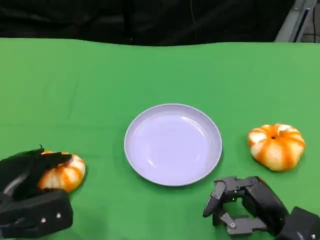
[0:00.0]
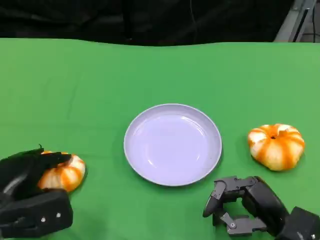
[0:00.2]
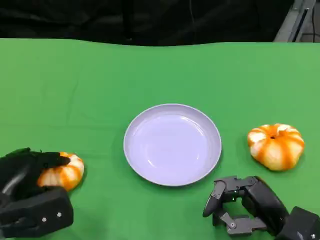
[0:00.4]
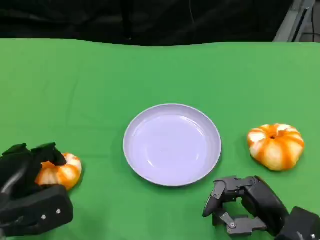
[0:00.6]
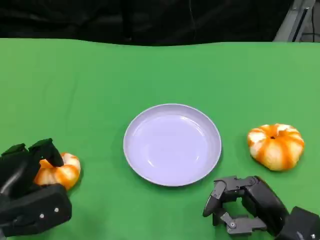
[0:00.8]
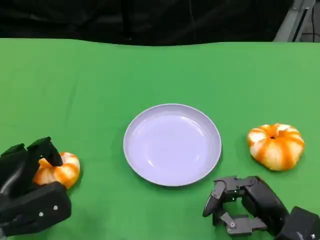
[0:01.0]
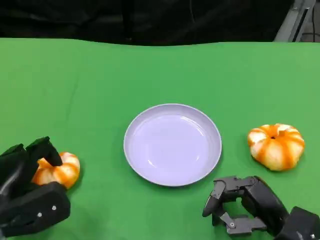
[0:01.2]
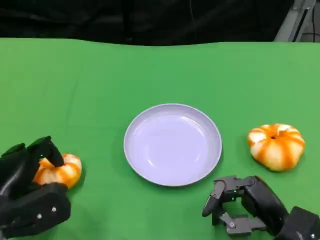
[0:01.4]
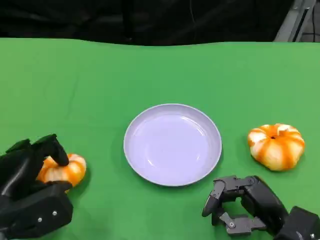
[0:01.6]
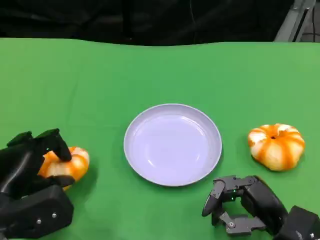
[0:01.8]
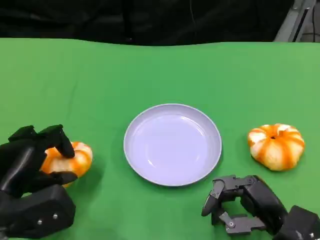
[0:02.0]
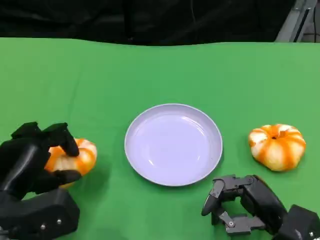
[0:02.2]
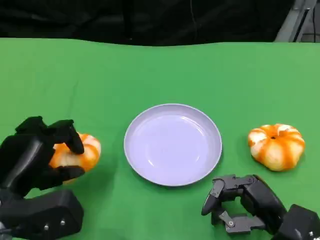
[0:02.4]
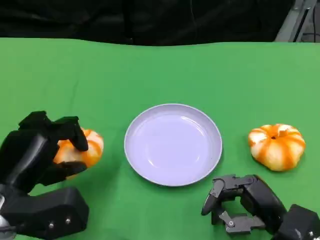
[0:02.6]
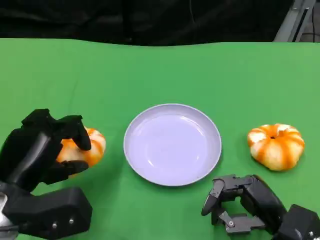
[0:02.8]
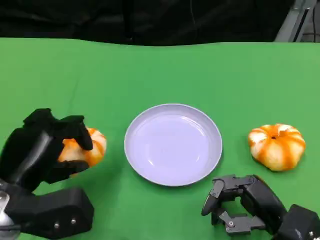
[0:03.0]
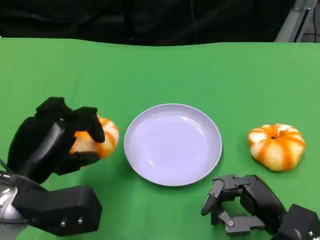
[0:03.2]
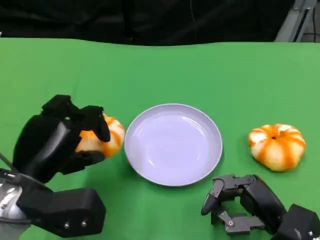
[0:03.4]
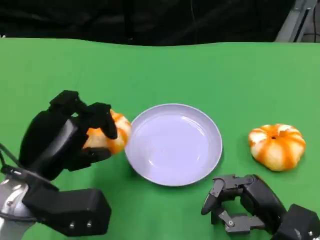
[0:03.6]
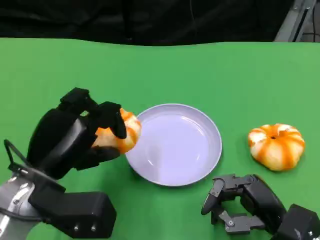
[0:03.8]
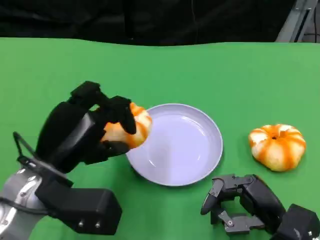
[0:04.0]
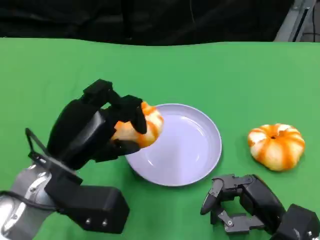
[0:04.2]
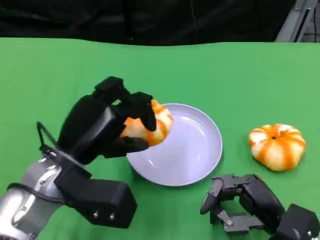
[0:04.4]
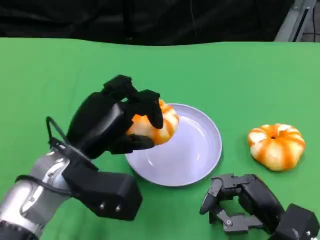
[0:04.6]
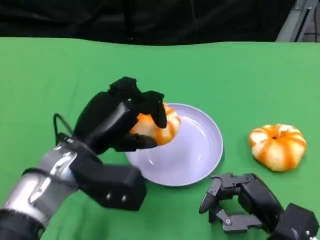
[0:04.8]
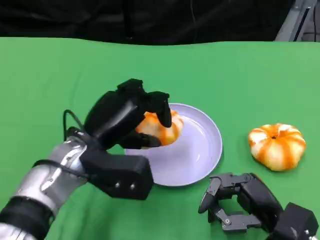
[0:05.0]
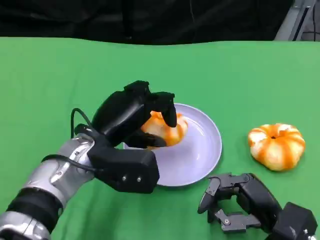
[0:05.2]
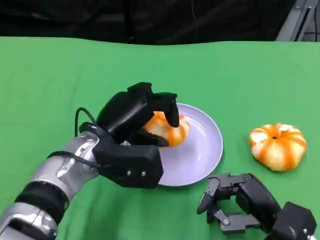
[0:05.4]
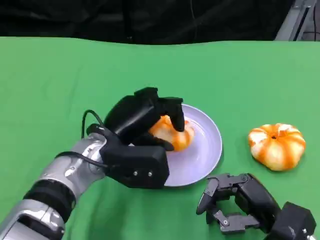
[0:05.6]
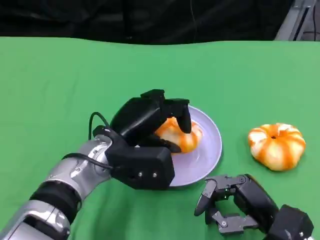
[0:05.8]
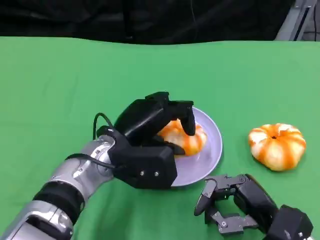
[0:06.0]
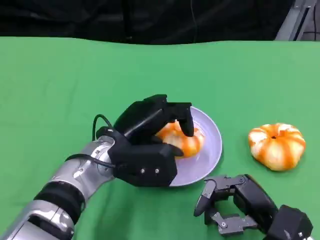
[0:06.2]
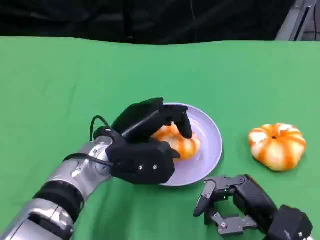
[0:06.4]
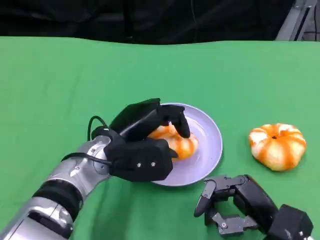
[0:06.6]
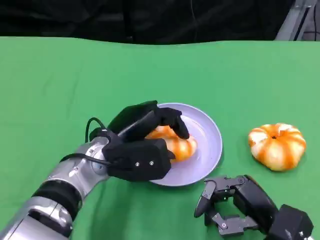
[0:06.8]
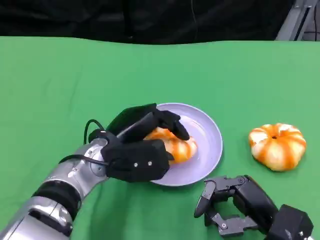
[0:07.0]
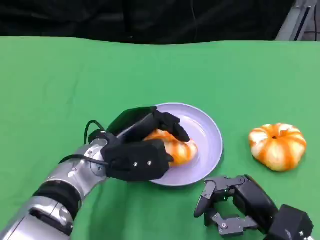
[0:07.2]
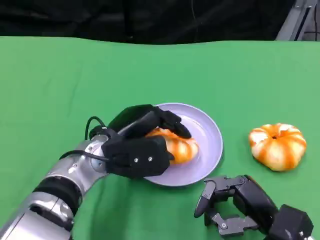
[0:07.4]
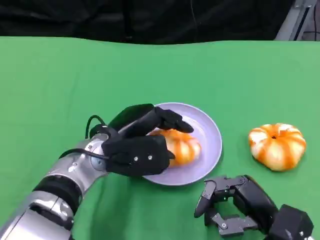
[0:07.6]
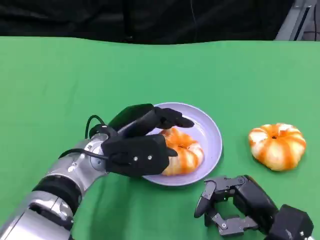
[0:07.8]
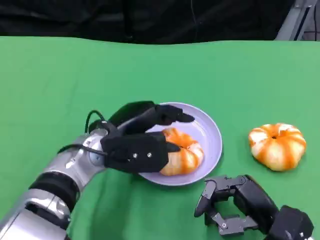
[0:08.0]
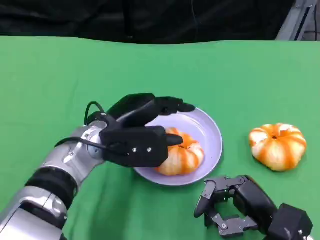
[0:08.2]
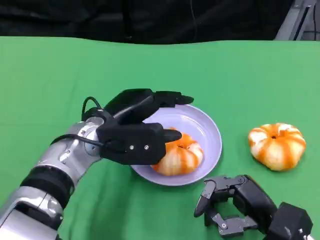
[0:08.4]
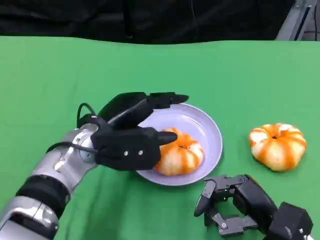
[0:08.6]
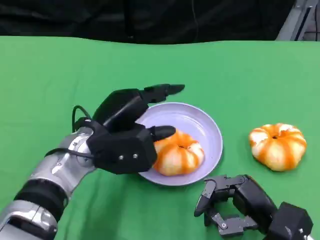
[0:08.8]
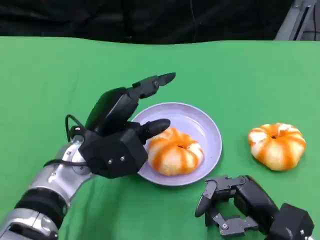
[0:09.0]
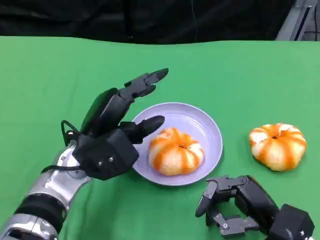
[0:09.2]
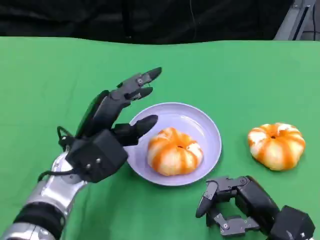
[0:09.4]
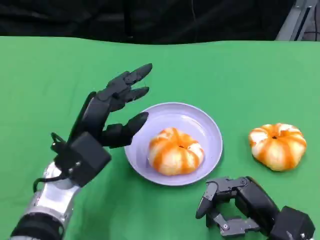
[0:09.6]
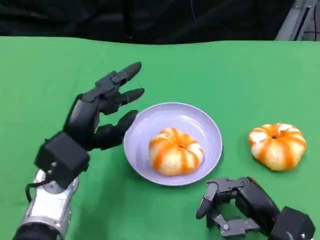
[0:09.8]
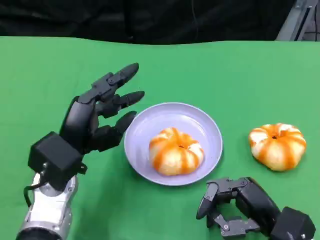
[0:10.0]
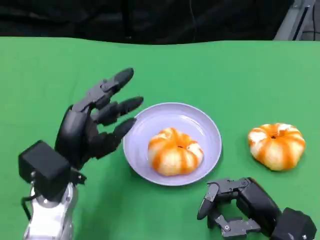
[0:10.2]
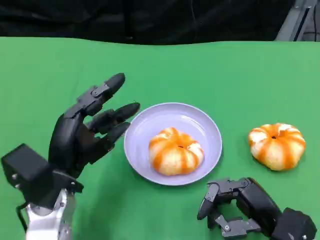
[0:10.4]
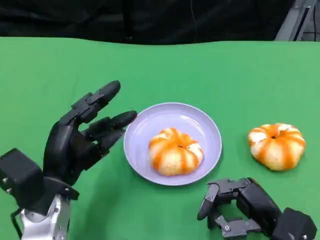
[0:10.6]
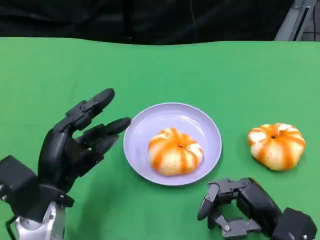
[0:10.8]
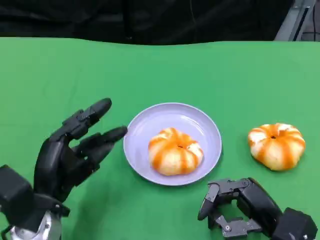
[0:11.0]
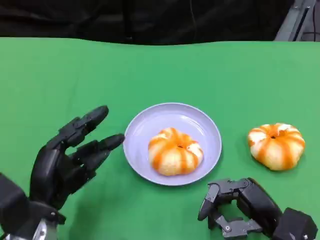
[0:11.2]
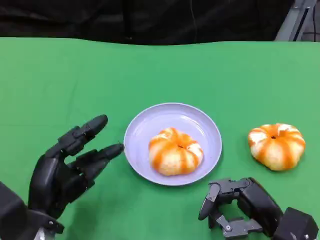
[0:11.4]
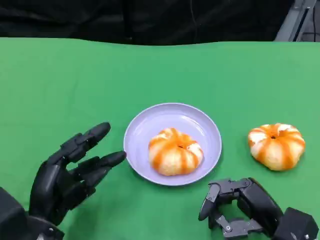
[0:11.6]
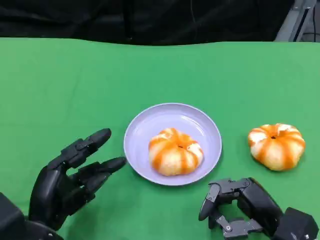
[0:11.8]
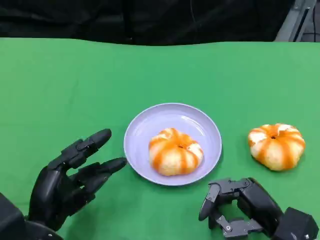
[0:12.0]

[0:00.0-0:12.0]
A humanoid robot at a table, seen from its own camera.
Task of the whole recording: Grasp the bread from the table and place it into the plate.
0:00.0 to 0:01.6: There are only small adjustments of the hands.
0:01.6 to 0:03.0: The left hand travels upward by about 5 cm.
0:03.0 to 0:04.4: The left hand is displaced to the right by some 5 cm.
0:04.4 to 0:06.0: The left hand travels to the right by roughly 5 cm.
0:06.0 to 0:07.6: The hands move only a little.
0:09.0 to 0:10.4: The left hand goes some 5 cm backward.
0:10.4 to 0:12.0: The left hand heads backward, covering approximately 5 cm.

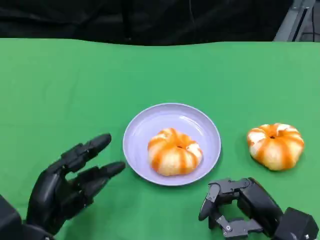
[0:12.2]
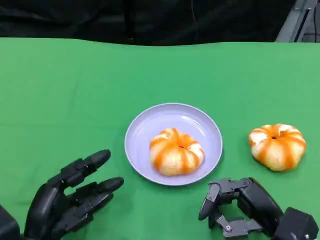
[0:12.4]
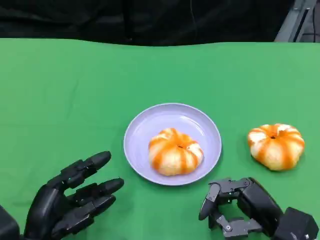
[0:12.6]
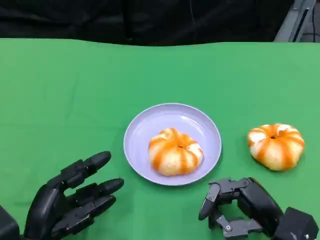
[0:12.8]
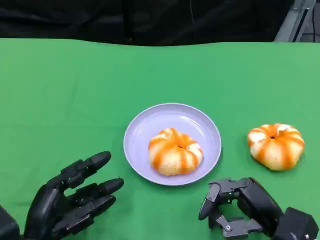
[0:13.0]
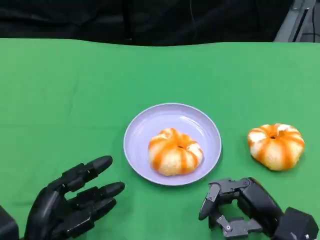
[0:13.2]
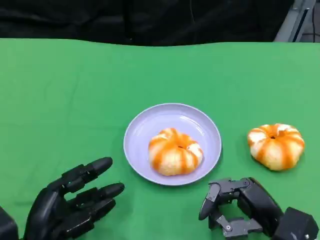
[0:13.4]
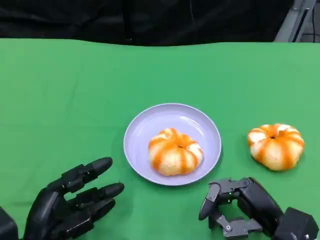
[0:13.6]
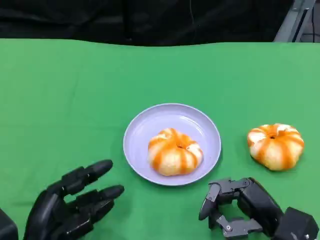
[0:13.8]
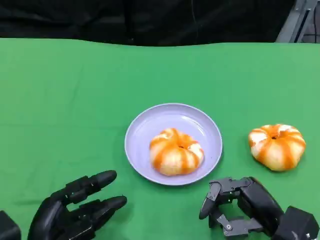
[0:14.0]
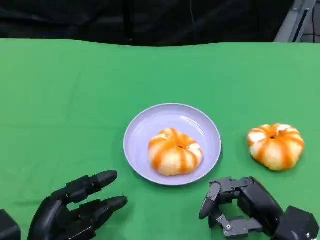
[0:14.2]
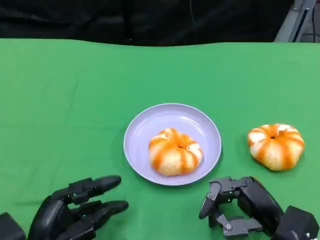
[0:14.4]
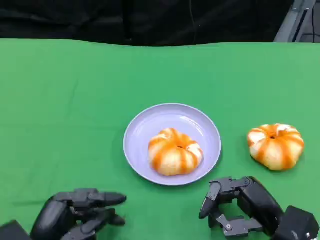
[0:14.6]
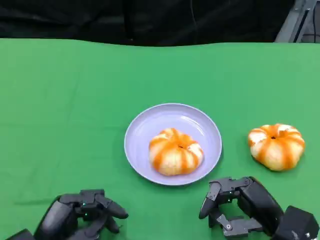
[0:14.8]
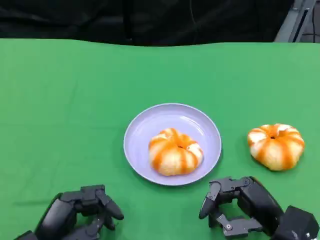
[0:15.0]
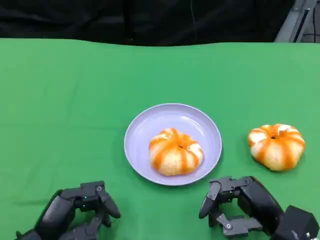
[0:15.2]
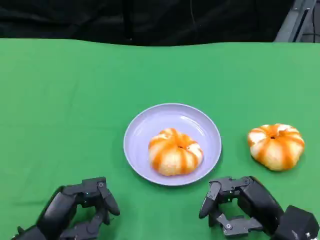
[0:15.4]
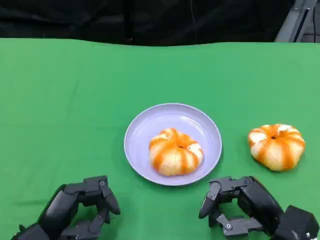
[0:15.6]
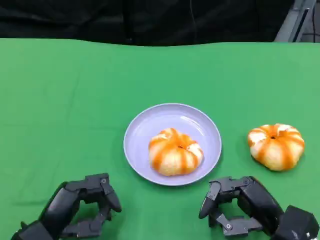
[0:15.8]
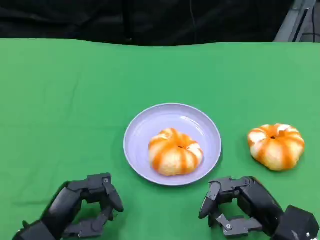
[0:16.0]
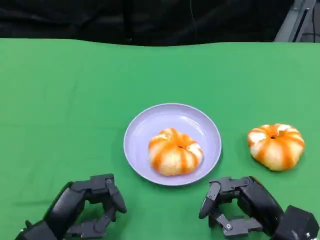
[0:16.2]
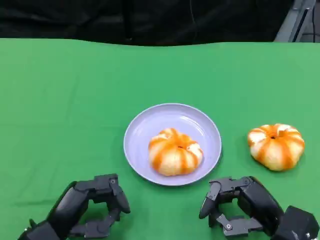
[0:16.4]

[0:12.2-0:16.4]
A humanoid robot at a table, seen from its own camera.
Task of the whole recording: Grasp the bread from the table and place it into the plate.
0:12.2 to 0:13.6: The hands make only small movements.
0:15.0 to 0:16.4: The hands stay close to where they were, moving slightly.

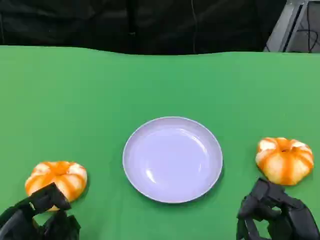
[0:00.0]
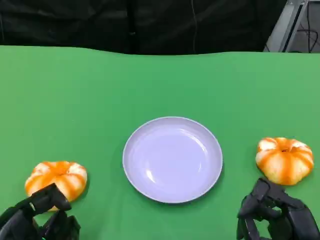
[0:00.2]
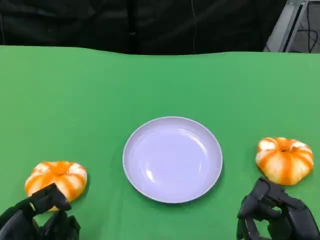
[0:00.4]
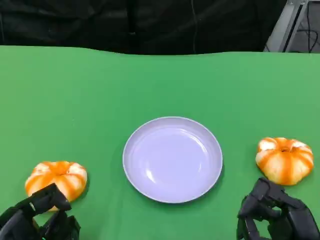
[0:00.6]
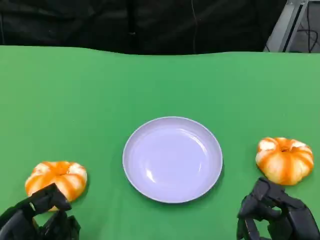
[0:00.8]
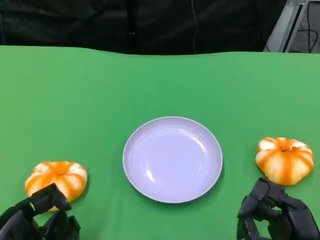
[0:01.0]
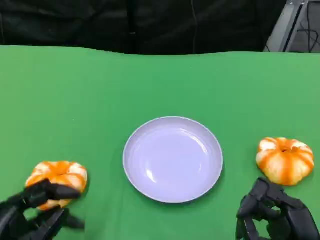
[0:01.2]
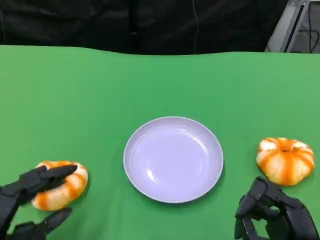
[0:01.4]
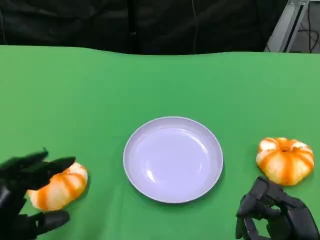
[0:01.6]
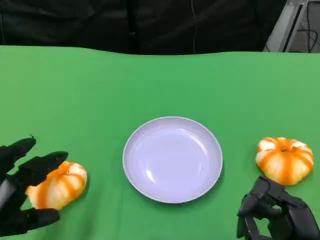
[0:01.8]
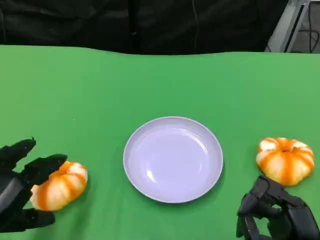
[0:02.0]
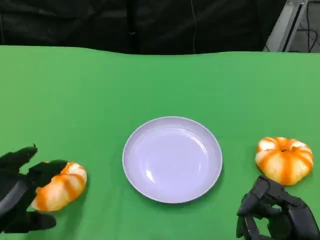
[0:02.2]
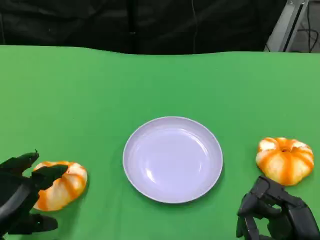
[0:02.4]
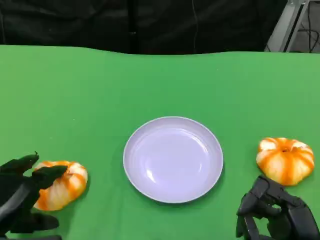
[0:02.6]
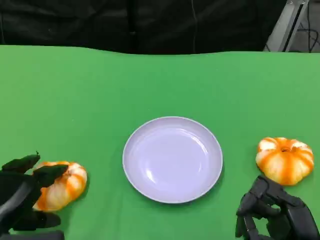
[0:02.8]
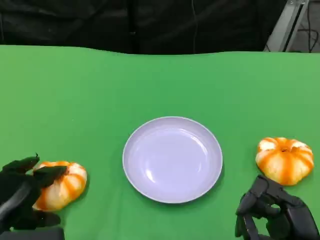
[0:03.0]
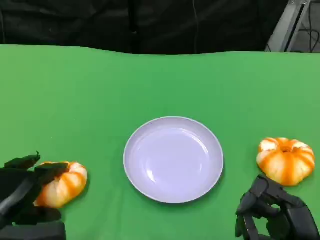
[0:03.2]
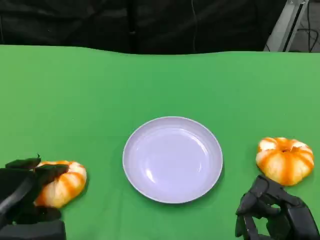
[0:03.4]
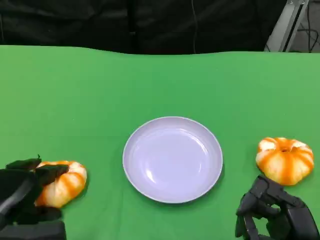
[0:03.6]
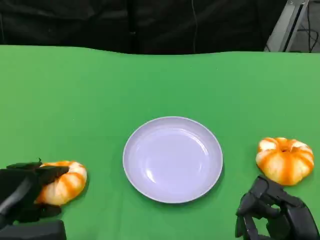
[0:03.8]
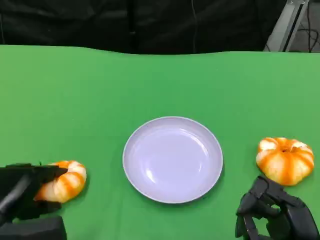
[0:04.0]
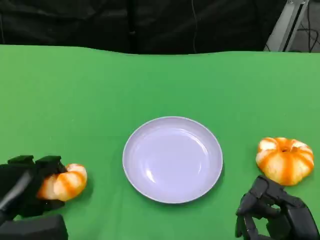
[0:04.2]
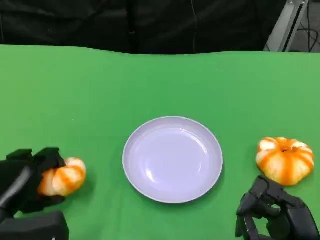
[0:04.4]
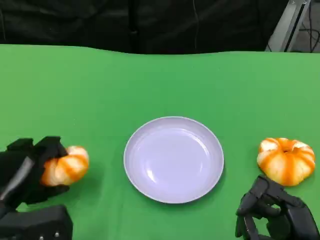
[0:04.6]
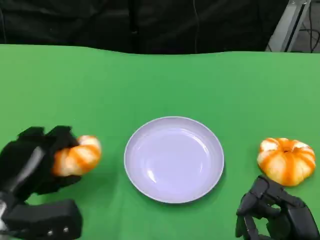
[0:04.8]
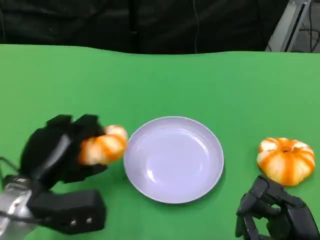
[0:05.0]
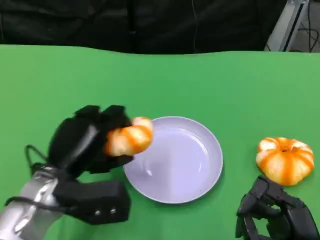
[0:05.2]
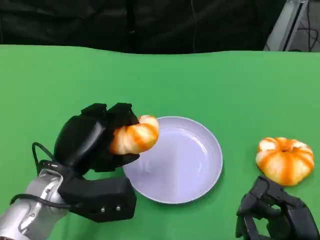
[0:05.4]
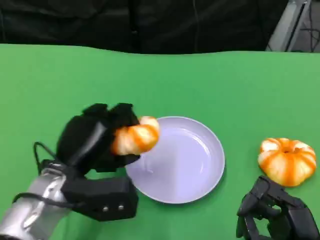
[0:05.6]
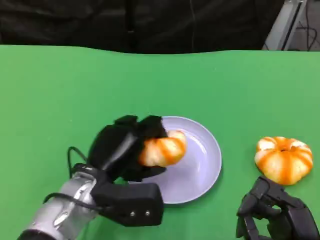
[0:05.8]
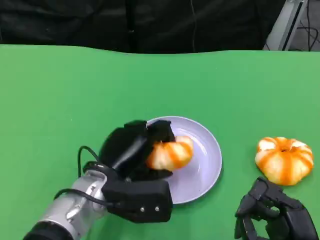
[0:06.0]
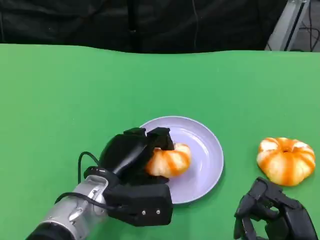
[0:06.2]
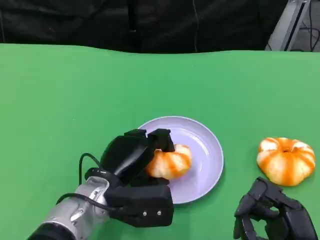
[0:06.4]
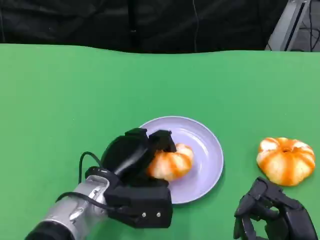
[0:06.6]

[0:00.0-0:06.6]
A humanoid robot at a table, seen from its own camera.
Task of the whole recording: Grasp the bread from the table and place it into the plate.
0:00.0 to 0:01.6: The left hand shifts roughly 5 cm upward.
0:01.6 to 0:03.2: The left hand heads downward and forward, covering some 10 cm.
0:03.2 to 0:05.0: The left hand travels to the right by roughly 5 cm.
0:05.0 to 0:06.6: The left hand travels to the right by some 10 cm.
